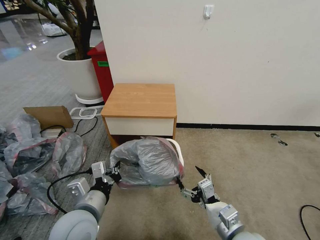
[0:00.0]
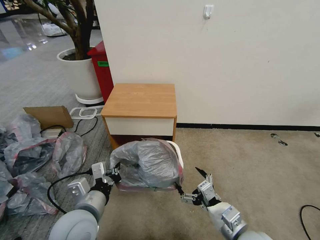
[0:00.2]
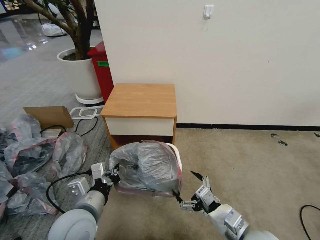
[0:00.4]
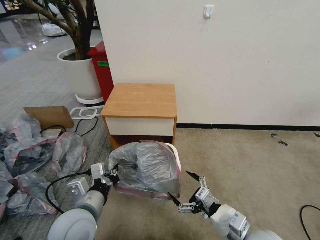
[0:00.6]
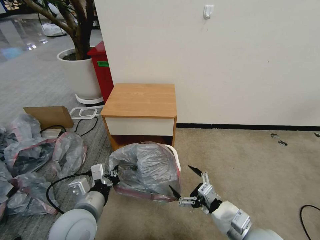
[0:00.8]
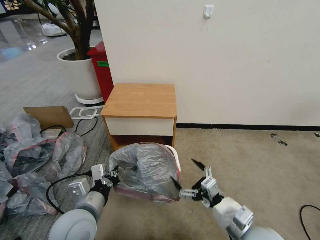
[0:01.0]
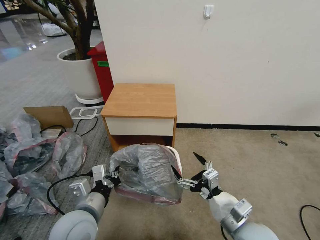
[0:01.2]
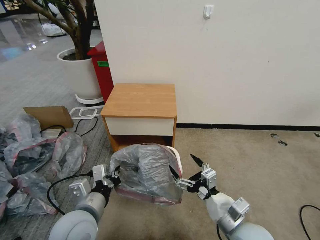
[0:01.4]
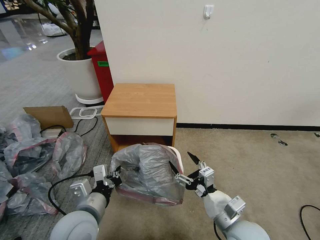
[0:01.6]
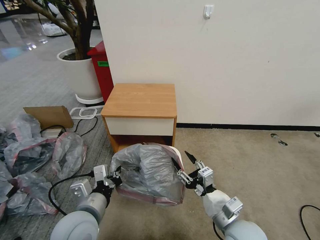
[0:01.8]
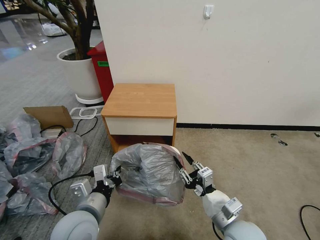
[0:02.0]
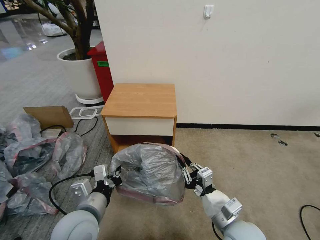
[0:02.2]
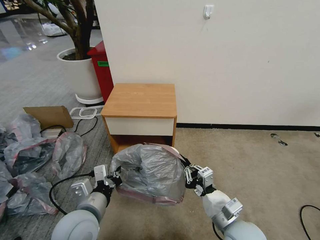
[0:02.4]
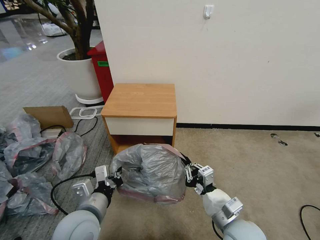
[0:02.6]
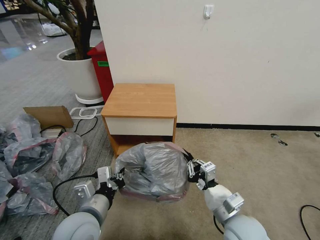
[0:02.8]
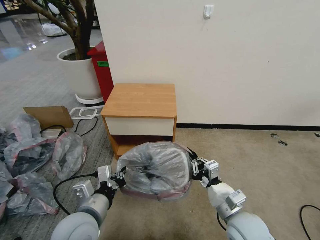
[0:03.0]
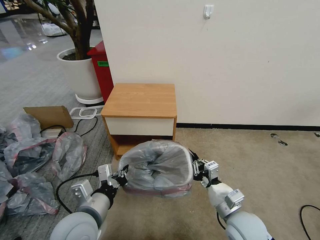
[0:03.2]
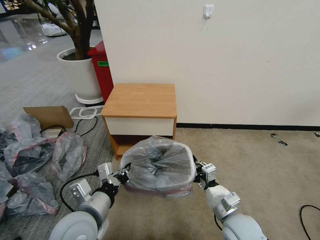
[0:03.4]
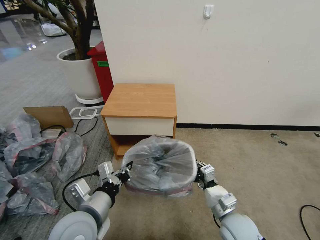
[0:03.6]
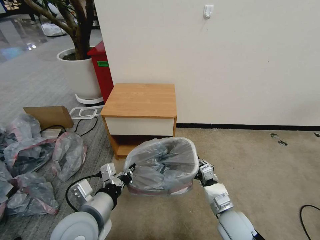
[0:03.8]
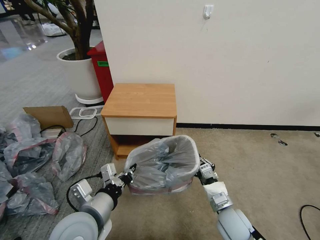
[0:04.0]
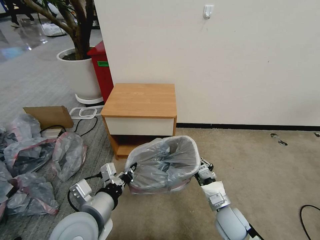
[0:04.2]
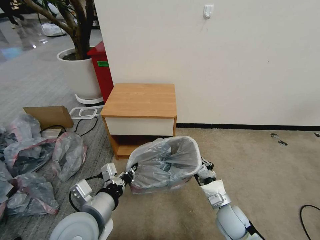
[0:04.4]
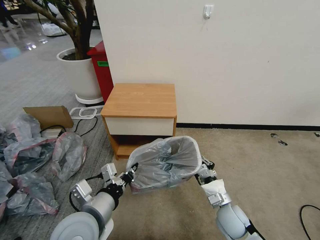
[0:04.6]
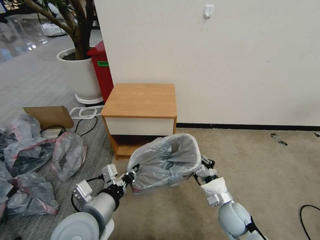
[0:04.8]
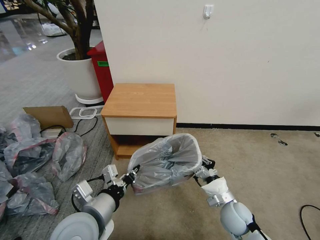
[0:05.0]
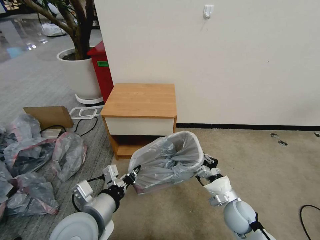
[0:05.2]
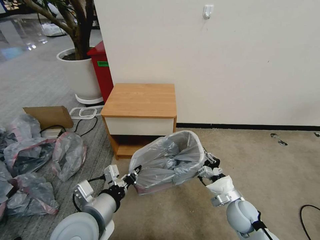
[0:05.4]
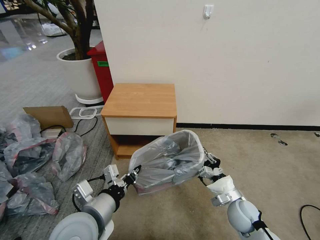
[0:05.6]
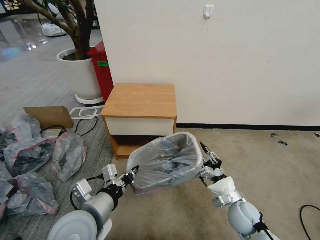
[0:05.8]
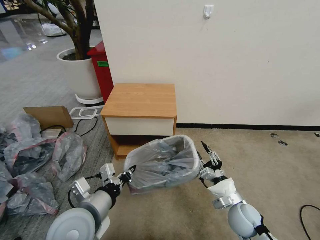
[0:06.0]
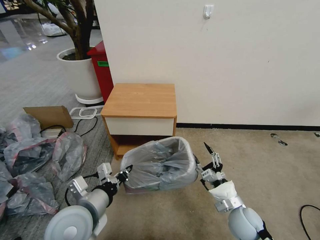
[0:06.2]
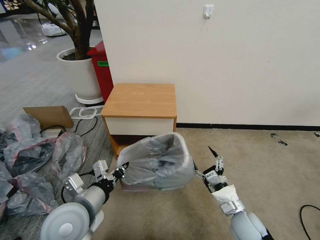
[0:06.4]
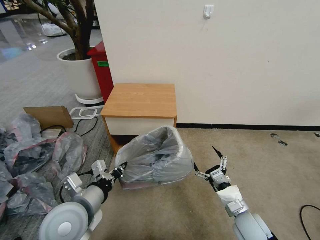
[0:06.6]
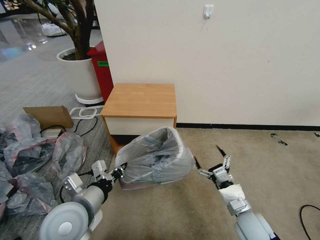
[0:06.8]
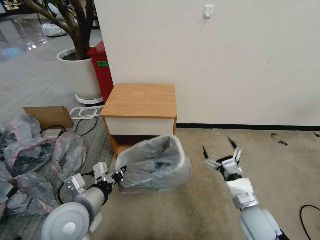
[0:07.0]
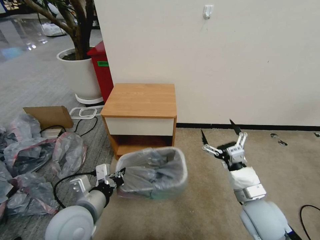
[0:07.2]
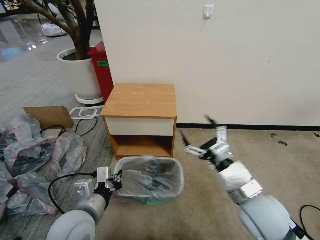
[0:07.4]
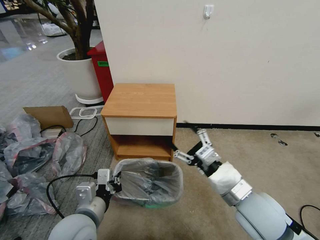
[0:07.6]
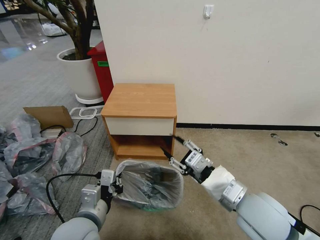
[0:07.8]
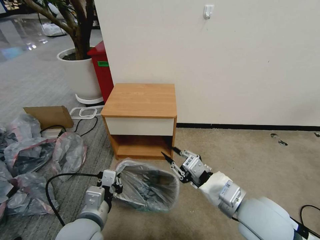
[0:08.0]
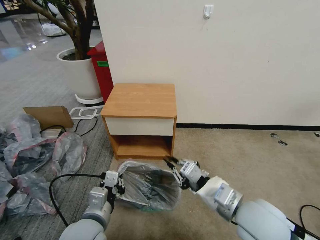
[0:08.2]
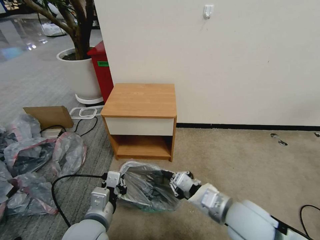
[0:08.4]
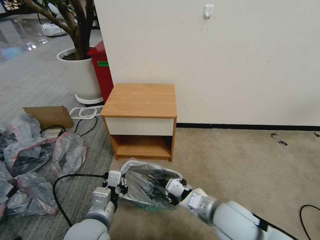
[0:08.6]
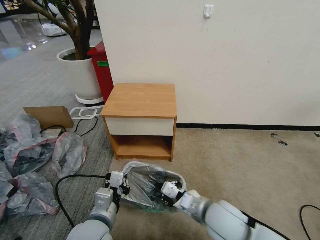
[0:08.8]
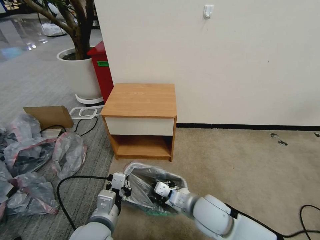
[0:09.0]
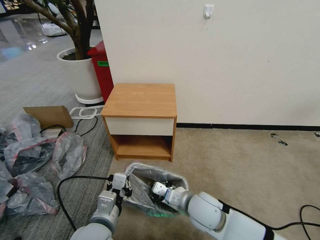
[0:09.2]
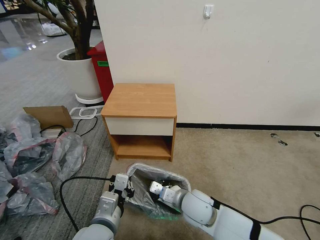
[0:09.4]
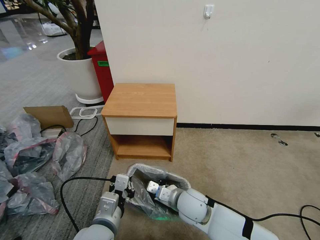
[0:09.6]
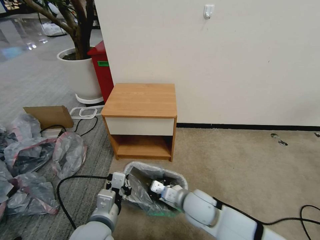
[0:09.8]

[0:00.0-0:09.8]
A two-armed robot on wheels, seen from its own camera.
Task of the whole recording: Pick up the garbage bag from the table and place it over the trash can.
0:00.0 to 0:01.4: The grippers make only small movements.
0:01.4 to 0:02.8: The right gripper closes.
0:02.8 to 0:04.2: The right gripper goes some 10 cm downward.
0:04.2 to 0:05.6: The right gripper moves to the right, approximately 5 cm.
0:05.6 to 0:07.0: The right gripper is displaced upward by about 5 cm, and opens.
0:07.0 to 0:08.4: The right gripper moves upward and to the left, some 15 cm, and closes; the left gripper moves about 5 cm.
0:08.4 to 0:09.8: The right gripper heads downward, to the left and forward, covering about 15 cm.

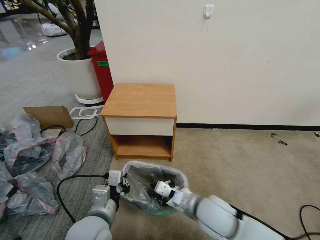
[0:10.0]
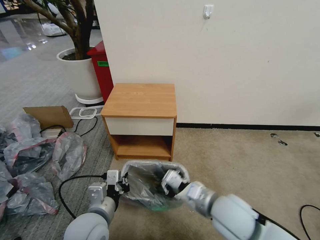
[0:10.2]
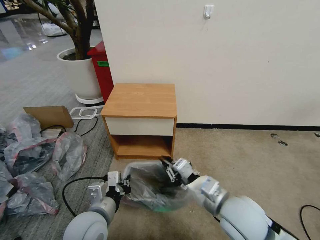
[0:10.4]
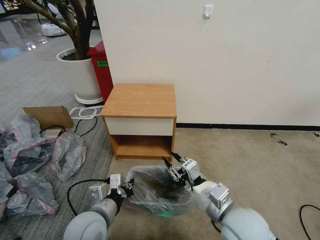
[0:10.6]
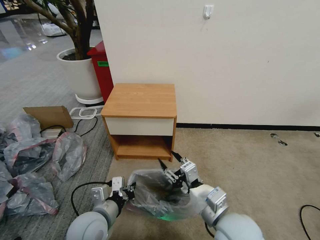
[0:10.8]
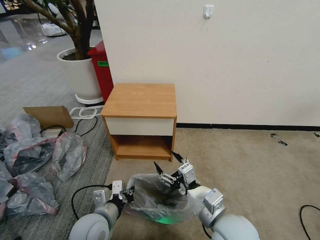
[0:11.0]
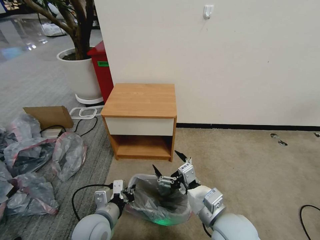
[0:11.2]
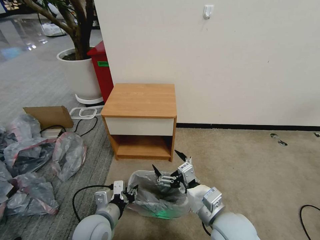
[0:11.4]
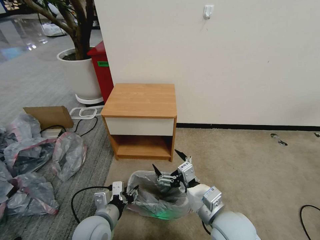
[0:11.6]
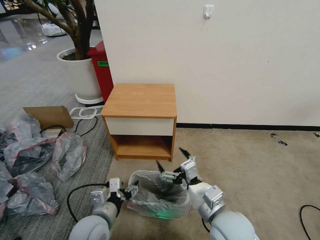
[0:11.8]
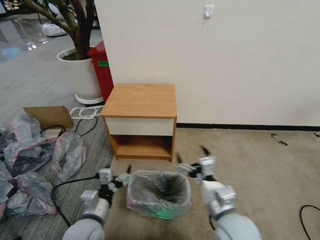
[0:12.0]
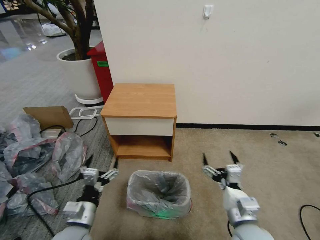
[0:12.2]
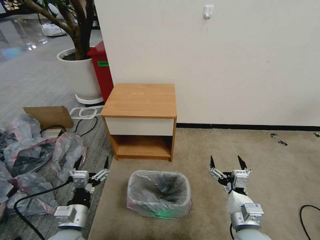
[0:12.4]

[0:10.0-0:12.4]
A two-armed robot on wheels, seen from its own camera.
Task of the whole recording: Pick up the garbage bag from the table and place it over the trash can.
0:10.0 to 0:11.2: The left gripper shifts approximately 5 cm downward; the right gripper shifts about 5 cm backward, and opens up.
0:11.2 to 0:12.4: The left gripper travels to the left by some 5 cm, and opens its fingers. Meanwhile the right gripper travels downward and to the right by some 10 cm.
